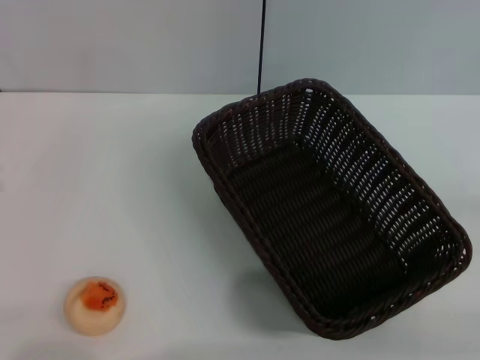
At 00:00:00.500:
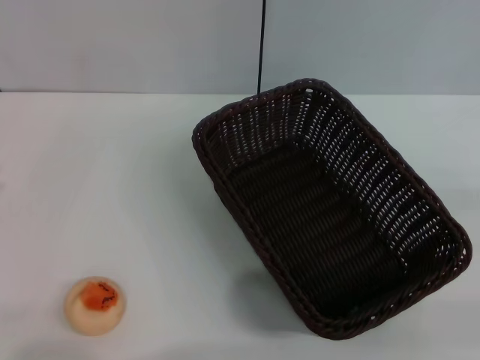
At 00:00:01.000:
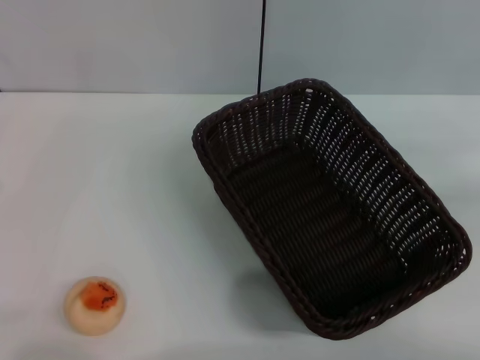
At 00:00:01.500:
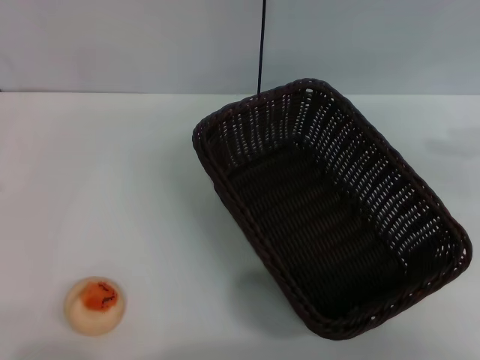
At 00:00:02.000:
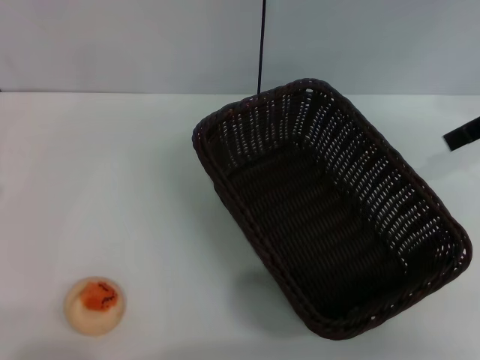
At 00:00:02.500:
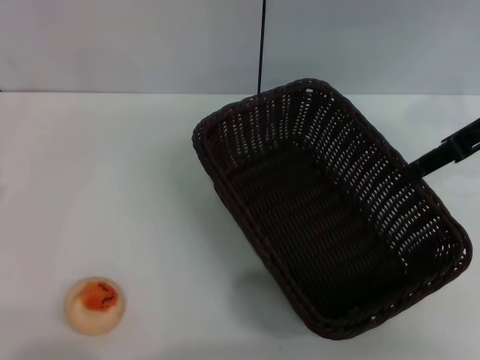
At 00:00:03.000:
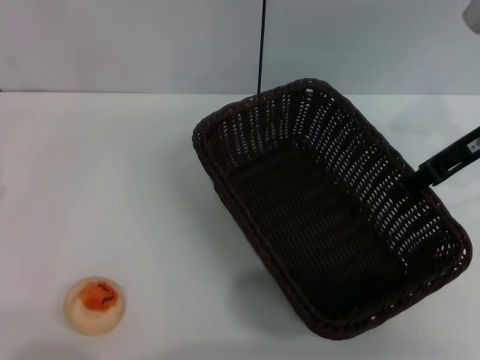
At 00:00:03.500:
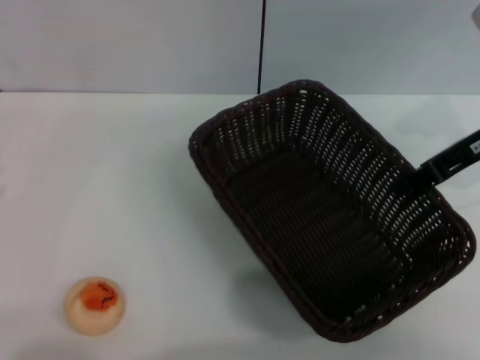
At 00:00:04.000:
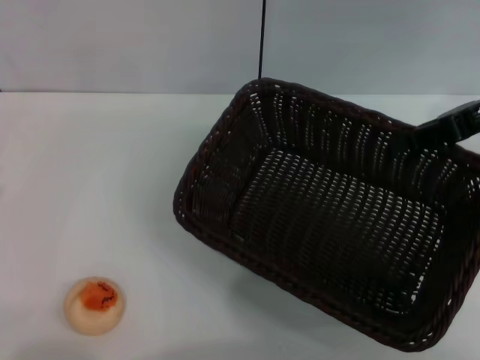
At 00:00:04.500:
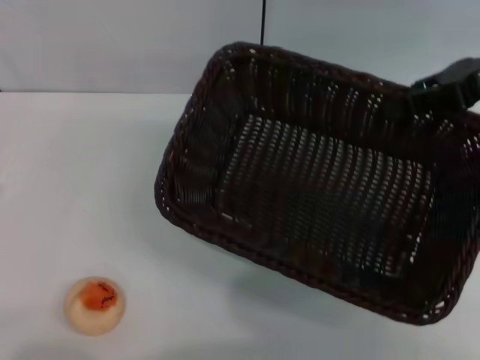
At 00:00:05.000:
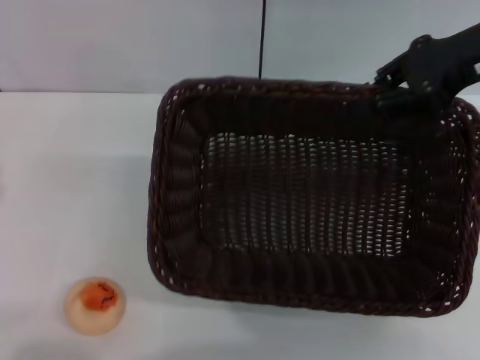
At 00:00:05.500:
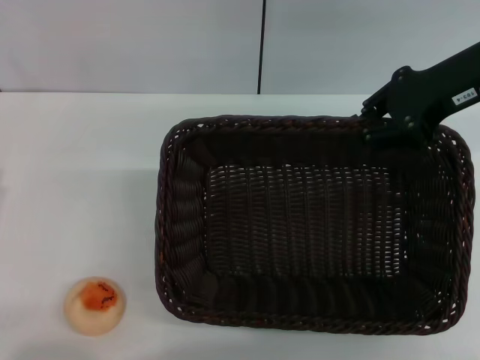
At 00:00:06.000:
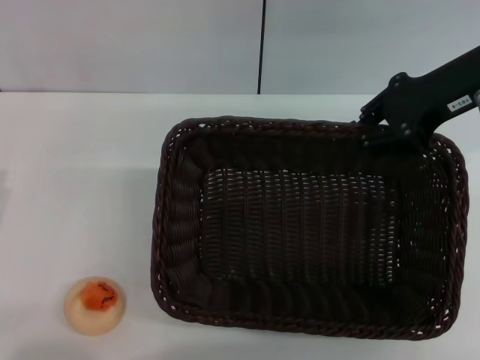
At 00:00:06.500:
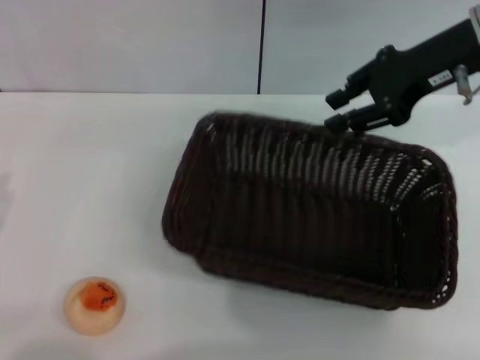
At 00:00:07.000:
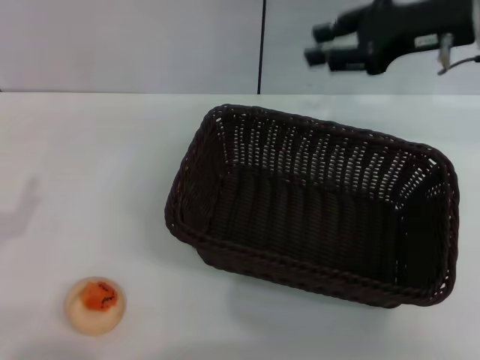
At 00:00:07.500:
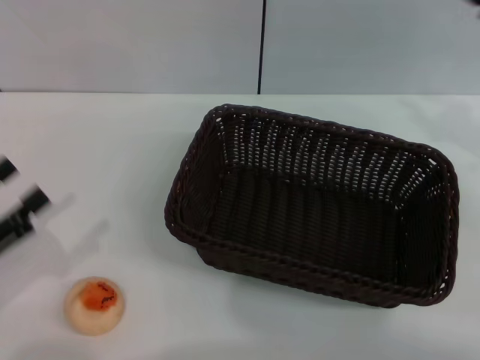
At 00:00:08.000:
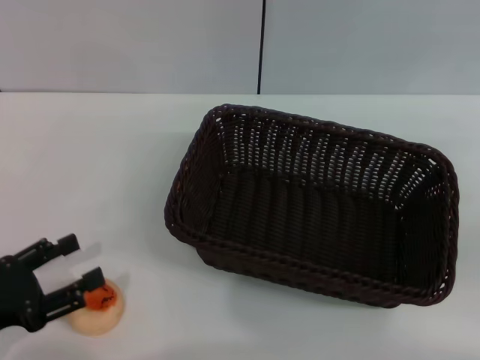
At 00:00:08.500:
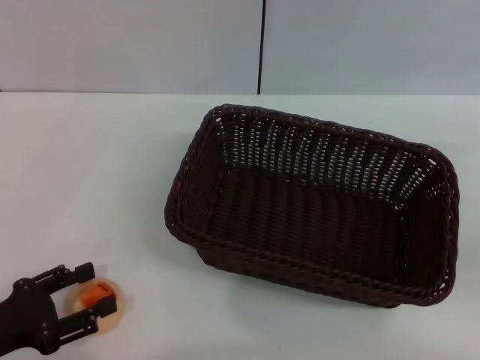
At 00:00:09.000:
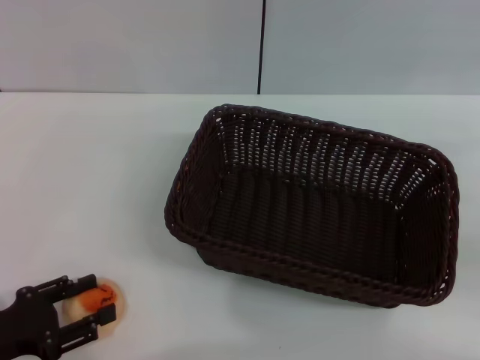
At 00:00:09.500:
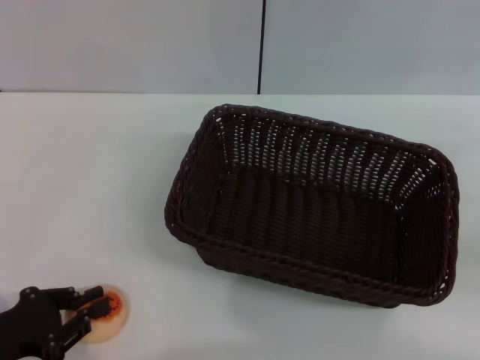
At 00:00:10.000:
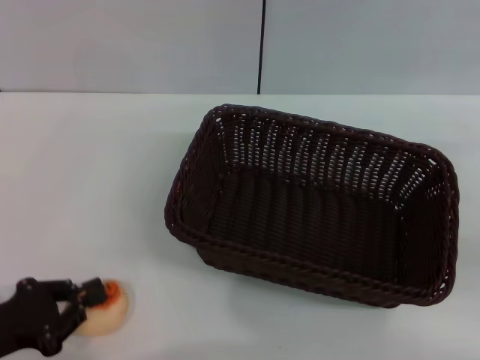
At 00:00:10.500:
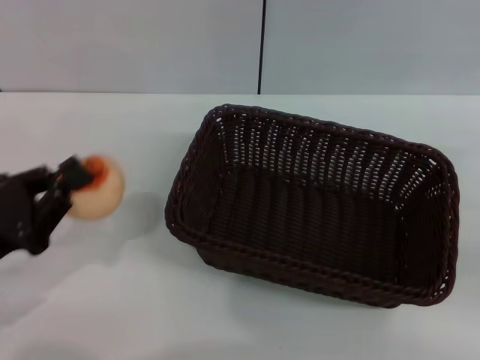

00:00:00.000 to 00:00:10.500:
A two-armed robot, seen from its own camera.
Step, 00:00:00.000 to 00:00:07.000: Move the basket to the center of view with the right gripper.
Step, 00:00:07.500 to 00:00:10.000: Pick up the egg yolk pastry with the left gripper.
00:00:00.000 to 00:00:02.000: The right gripper heads forward, upward and to the left, covering roughly 30 cm.
00:00:02.000 to 00:00:04.000: The right gripper closes.
00:00:04.000 to 00:00:06.500: The right gripper shifts some 5 cm to the left, and opens up.
00:00:06.500 to 00:00:08.500: The right gripper heads to the right, backward and downward, covering roughly 25 cm.
00:00:08.500 to 00:00:10.500: The left gripper moves roughly 5 cm, and closes.

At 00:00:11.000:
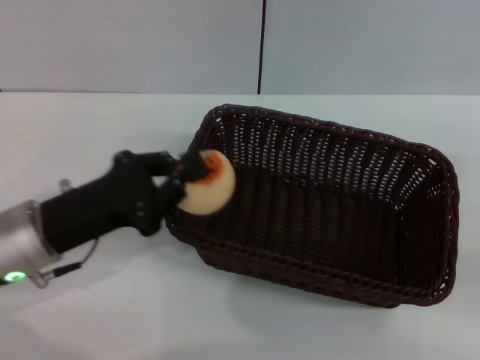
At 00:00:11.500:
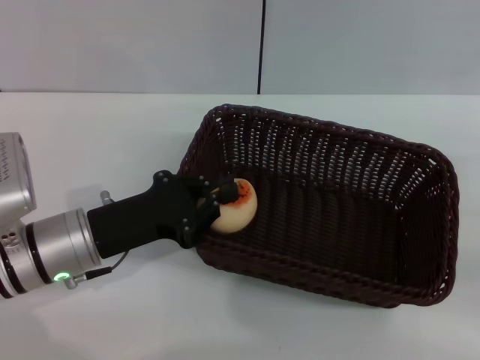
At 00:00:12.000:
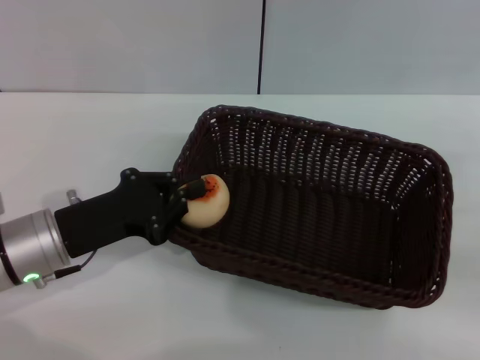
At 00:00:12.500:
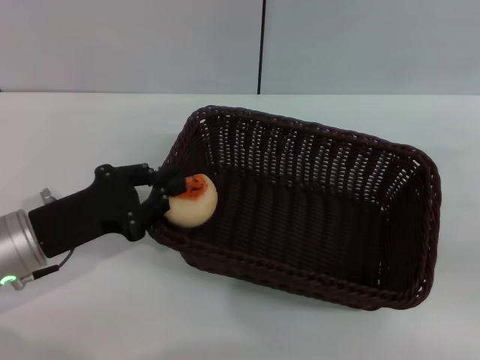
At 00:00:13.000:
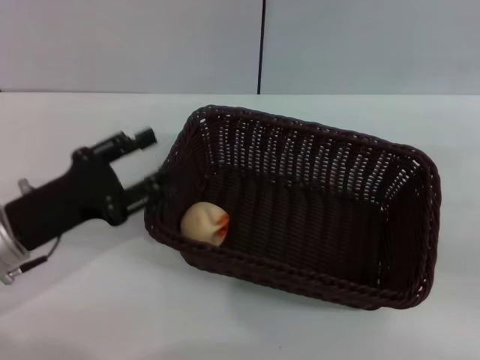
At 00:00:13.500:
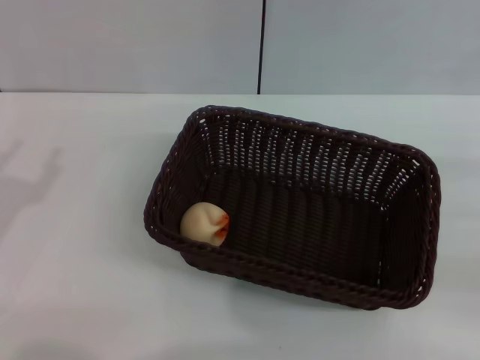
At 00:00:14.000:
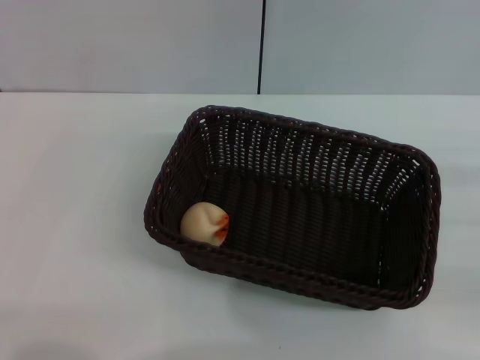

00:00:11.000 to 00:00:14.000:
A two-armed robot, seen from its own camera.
Step, 00:00:11.000 to 00:00:13.000: Place the egg yolk pastry into the basket with the left gripper.
00:00:11.000 to 00:00:12.500: There are only small adjustments of the grippers.
00:00:12.500 to 00:00:14.000: The left gripper is displaced to the left and backward by roughly 10 cm, and opens its fingers.
